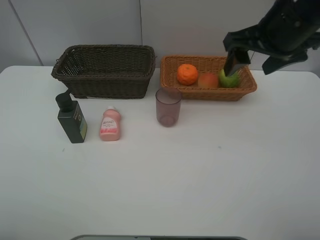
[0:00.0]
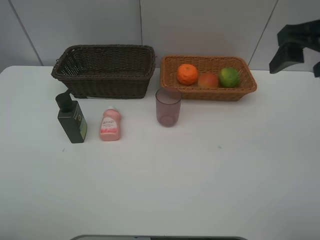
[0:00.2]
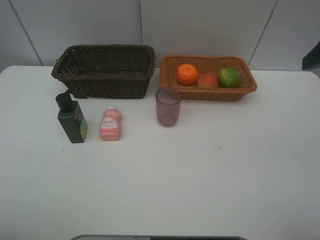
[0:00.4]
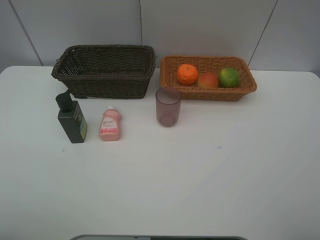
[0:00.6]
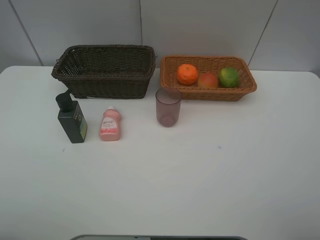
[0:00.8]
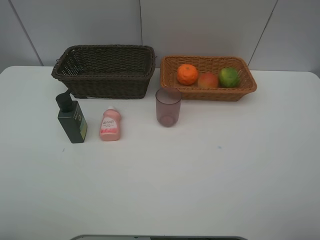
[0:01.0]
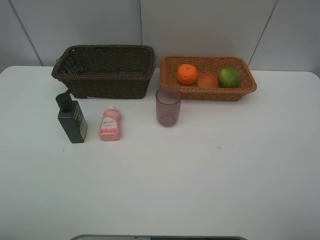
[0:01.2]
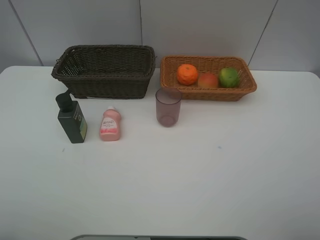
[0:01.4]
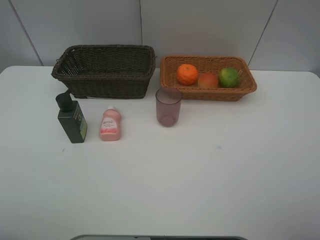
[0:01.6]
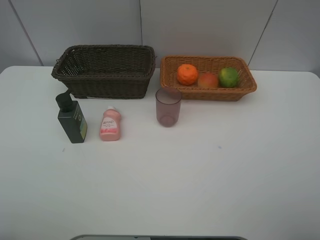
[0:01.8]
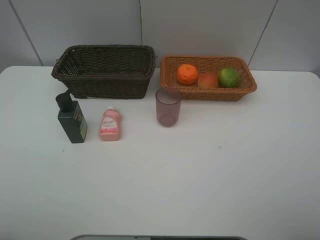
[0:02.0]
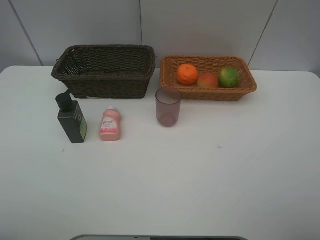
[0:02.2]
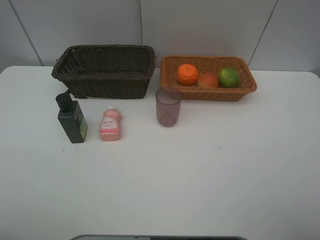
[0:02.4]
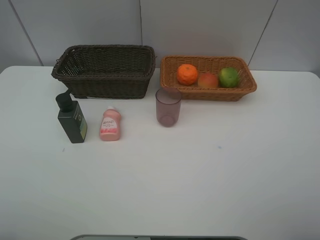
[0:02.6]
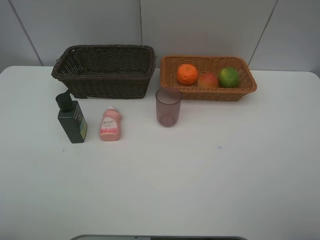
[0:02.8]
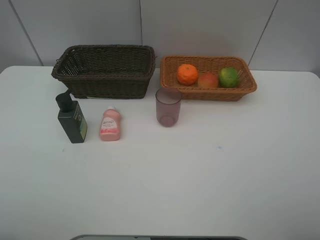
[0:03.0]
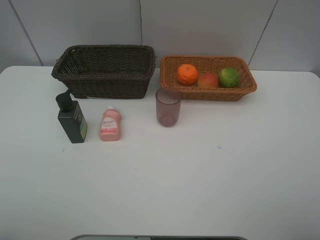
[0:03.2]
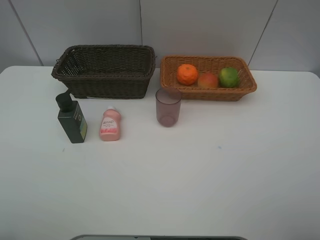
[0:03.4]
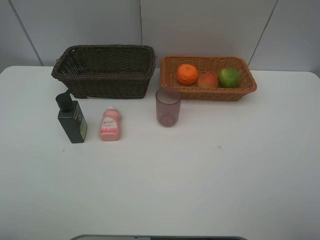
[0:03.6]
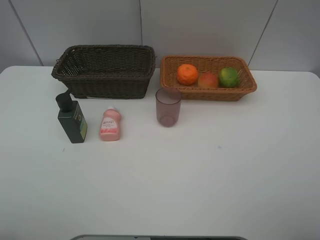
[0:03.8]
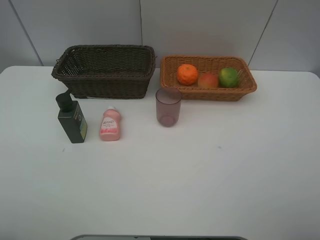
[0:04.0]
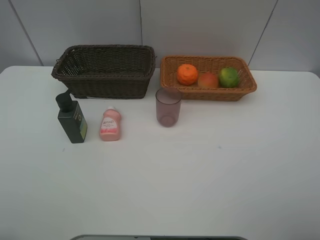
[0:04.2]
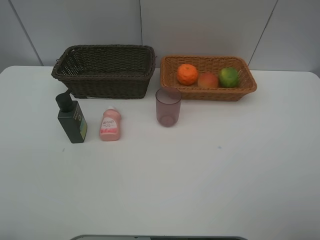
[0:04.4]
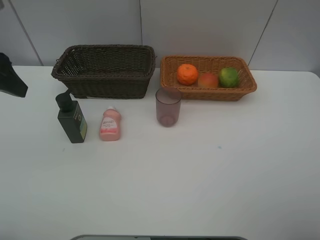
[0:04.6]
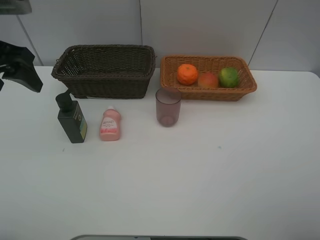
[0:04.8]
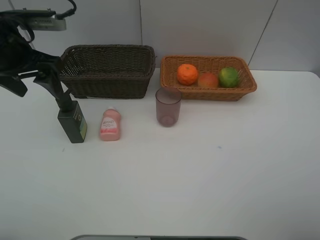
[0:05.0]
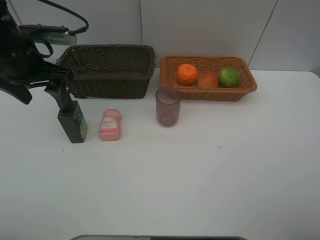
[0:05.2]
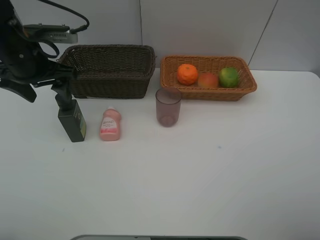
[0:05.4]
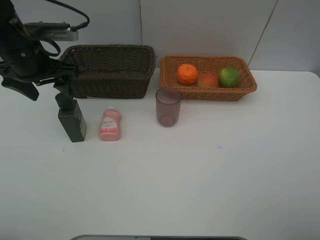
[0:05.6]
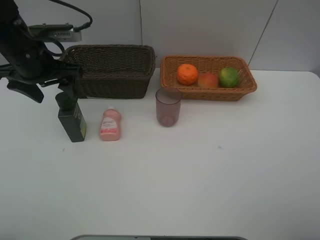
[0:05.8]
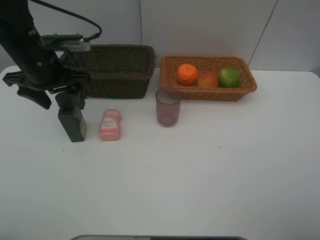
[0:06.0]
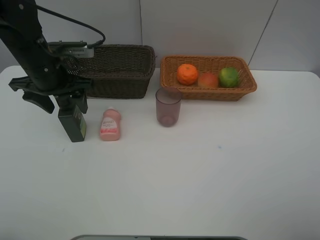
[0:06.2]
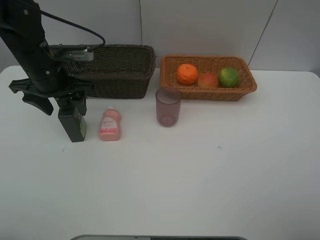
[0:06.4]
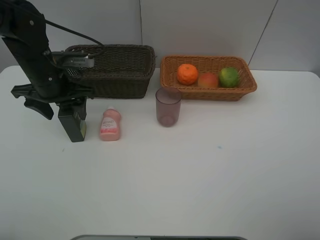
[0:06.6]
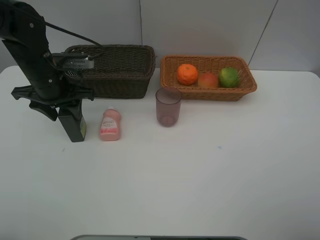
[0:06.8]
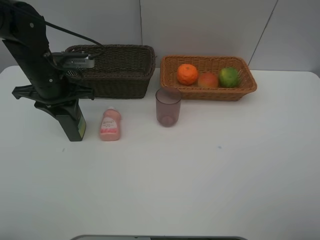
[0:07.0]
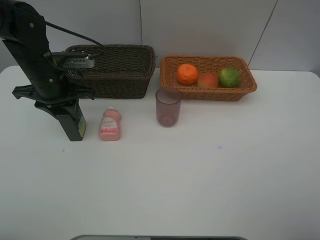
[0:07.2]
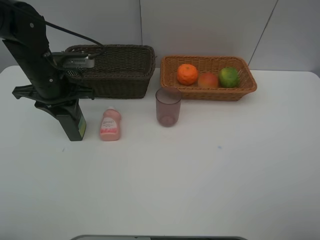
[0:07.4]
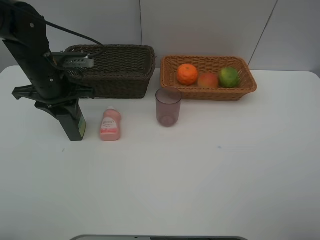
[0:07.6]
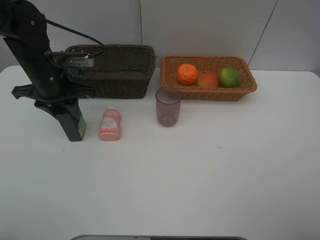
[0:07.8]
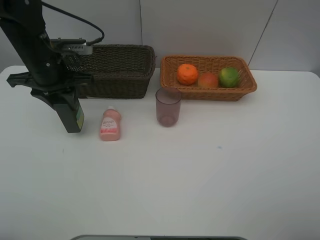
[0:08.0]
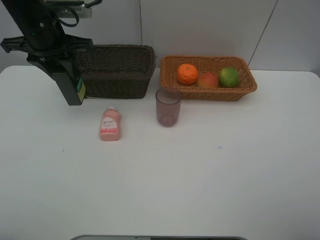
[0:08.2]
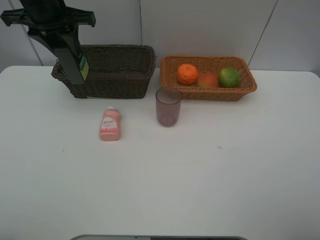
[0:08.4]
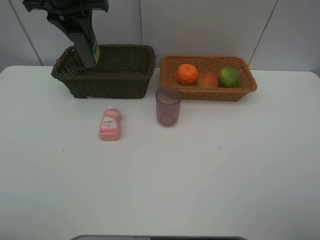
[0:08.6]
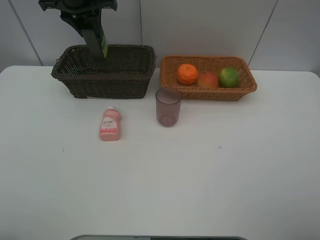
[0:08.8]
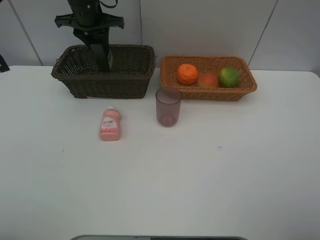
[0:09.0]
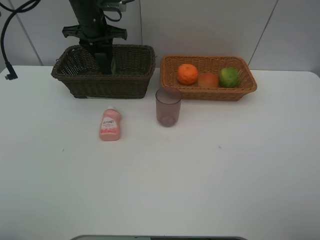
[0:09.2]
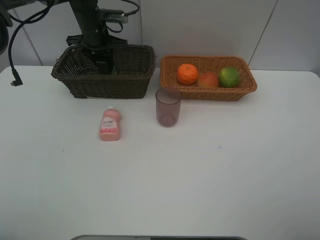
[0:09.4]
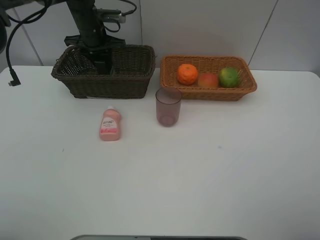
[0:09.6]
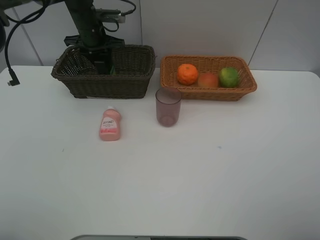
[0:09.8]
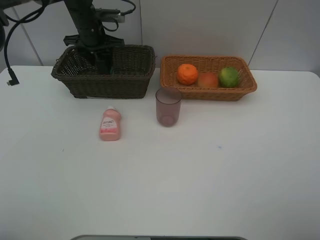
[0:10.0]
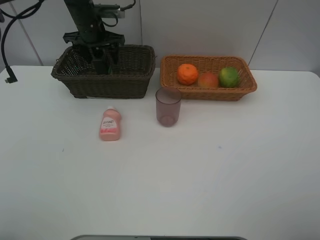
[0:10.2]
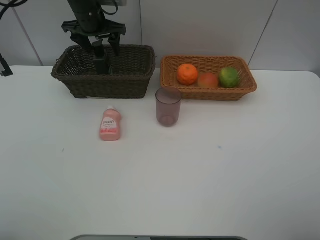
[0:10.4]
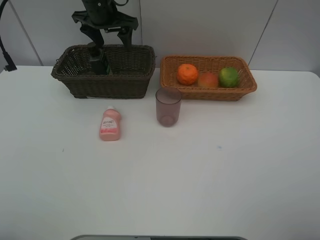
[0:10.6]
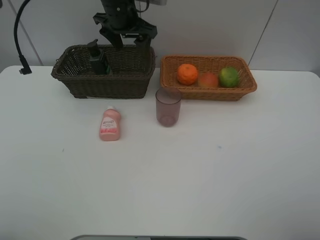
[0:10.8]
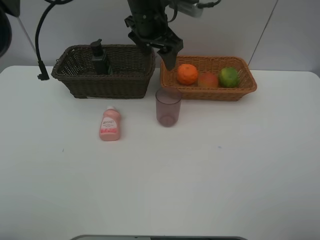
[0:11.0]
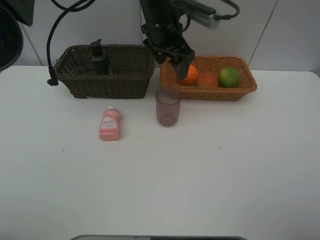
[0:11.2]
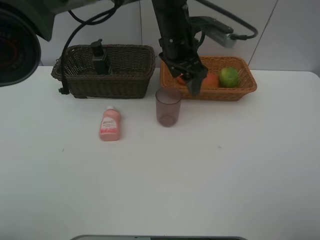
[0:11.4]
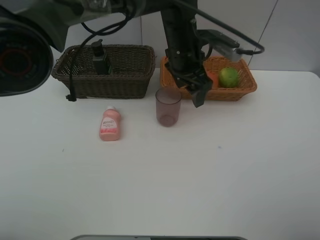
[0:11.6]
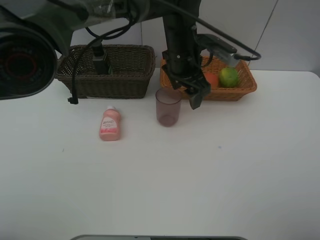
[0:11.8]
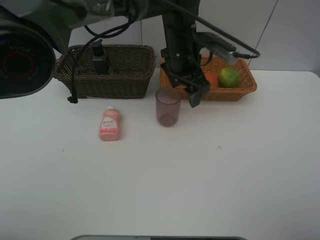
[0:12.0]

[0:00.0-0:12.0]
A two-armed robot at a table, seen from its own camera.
Task of the whole recording: place multiple objects separately in different baskets.
0:00.0 to 0:01.6: The right gripper goes roughly 25 cm backward.
0:04.4 to 0:06.0: The left gripper moves forward, downward and to the right, some 20 cm.
0:06.0 to 0:07.6: The left gripper closes its fingers.
0:07.6 to 0:09.0: The left gripper shifts approximately 20 cm forward and upward.
0:09.0 to 0:10.4: The left gripper opens its fingers.
0:10.4 to 0:12.0: The left gripper moves to the right and backward, approximately 25 cm.

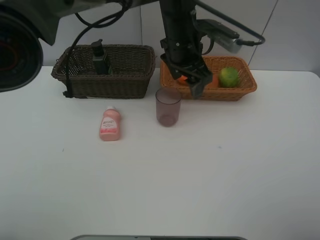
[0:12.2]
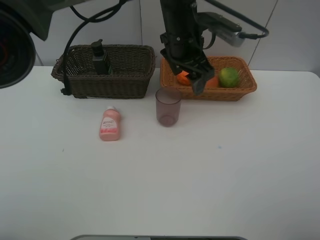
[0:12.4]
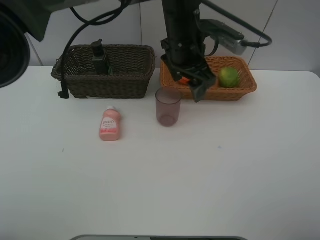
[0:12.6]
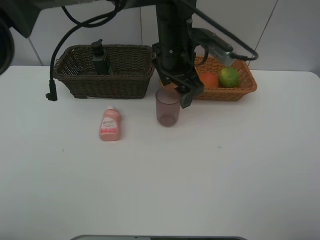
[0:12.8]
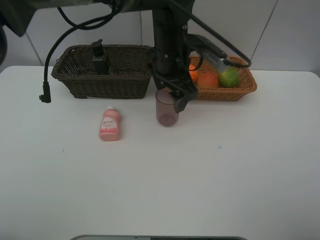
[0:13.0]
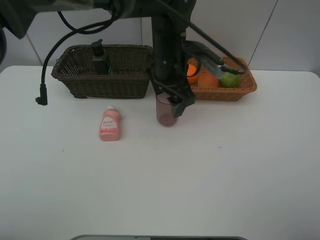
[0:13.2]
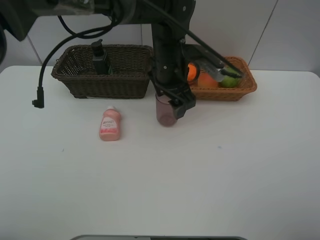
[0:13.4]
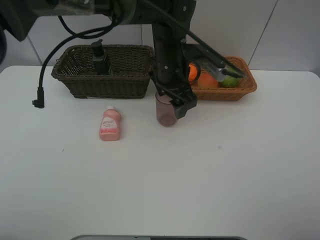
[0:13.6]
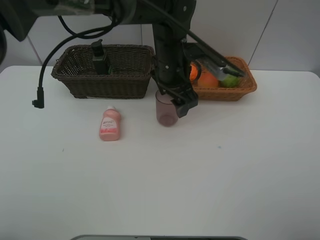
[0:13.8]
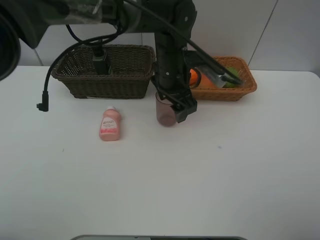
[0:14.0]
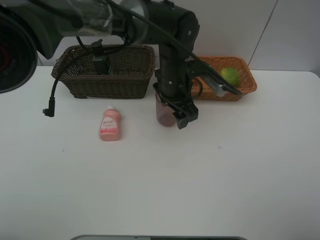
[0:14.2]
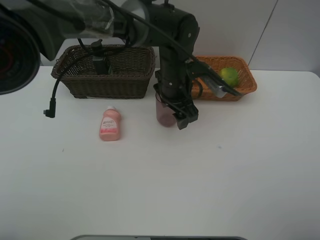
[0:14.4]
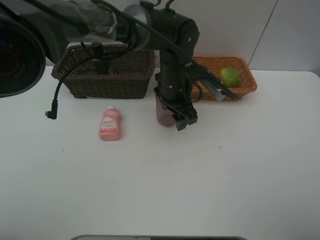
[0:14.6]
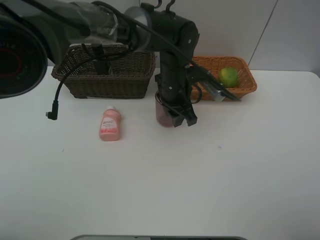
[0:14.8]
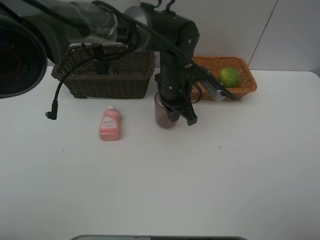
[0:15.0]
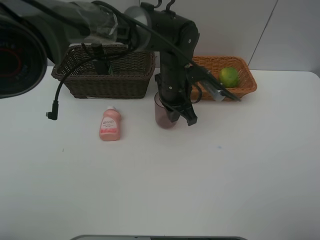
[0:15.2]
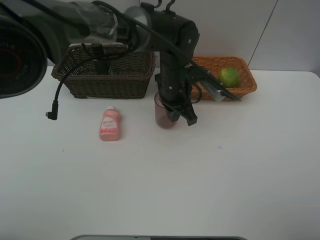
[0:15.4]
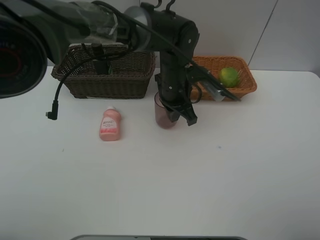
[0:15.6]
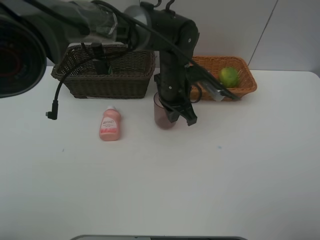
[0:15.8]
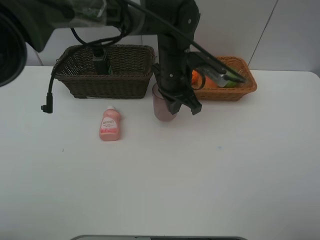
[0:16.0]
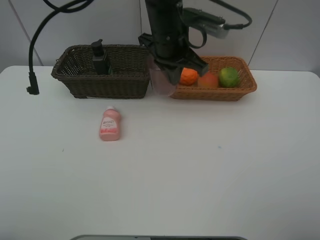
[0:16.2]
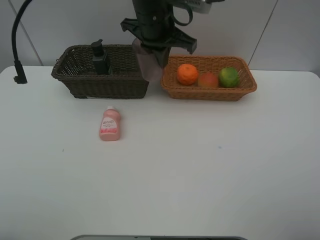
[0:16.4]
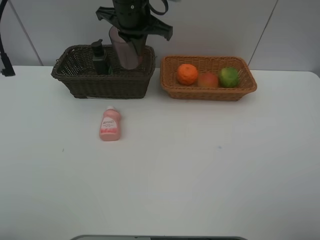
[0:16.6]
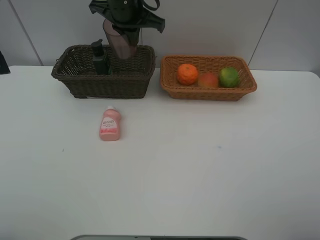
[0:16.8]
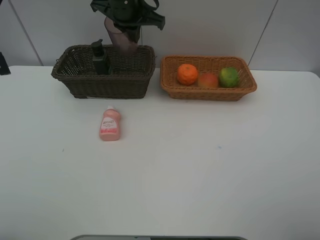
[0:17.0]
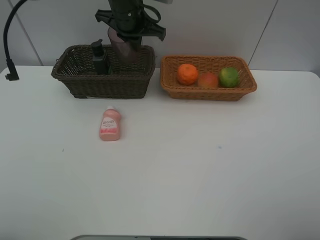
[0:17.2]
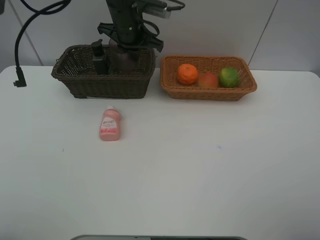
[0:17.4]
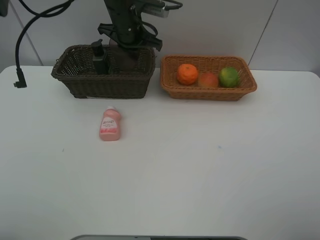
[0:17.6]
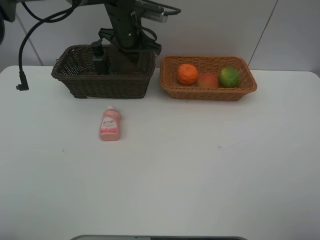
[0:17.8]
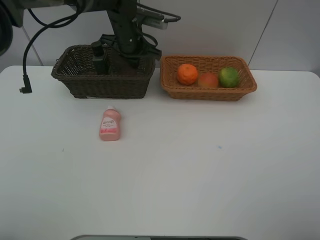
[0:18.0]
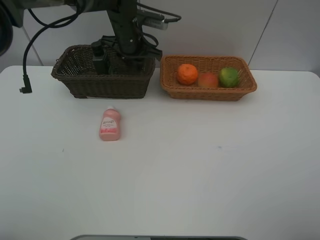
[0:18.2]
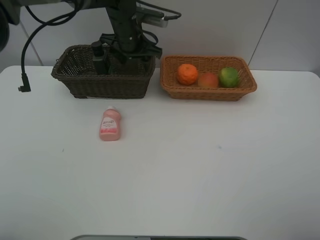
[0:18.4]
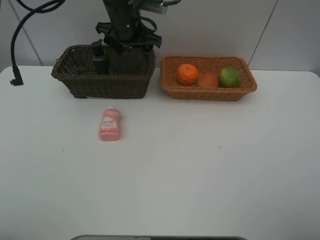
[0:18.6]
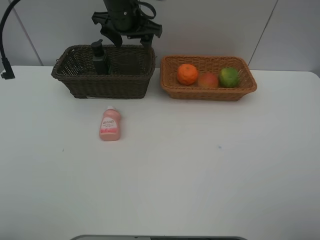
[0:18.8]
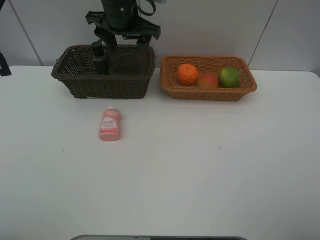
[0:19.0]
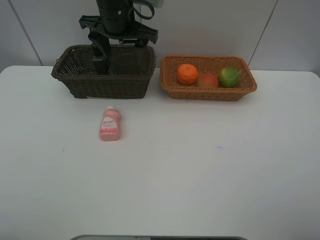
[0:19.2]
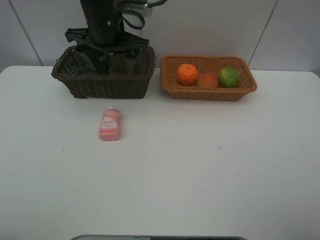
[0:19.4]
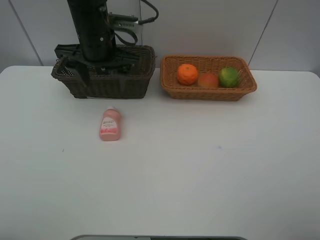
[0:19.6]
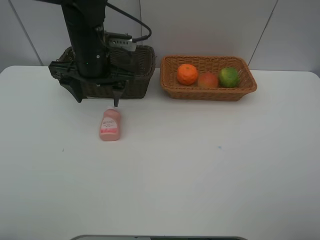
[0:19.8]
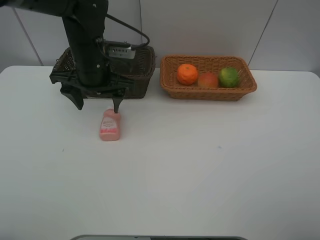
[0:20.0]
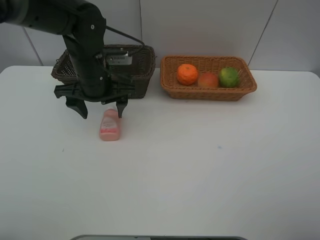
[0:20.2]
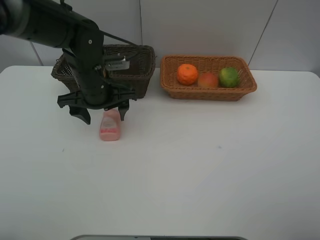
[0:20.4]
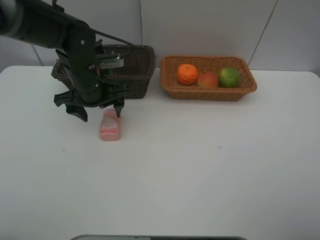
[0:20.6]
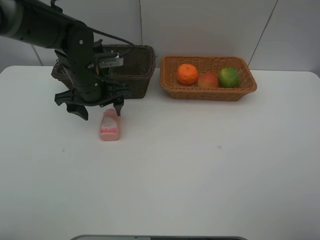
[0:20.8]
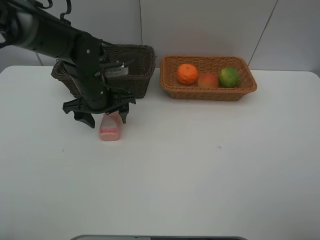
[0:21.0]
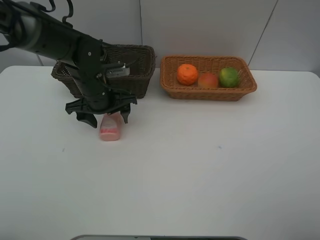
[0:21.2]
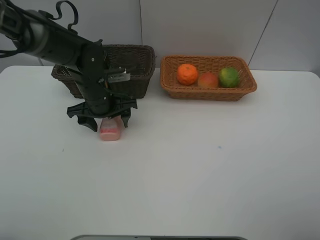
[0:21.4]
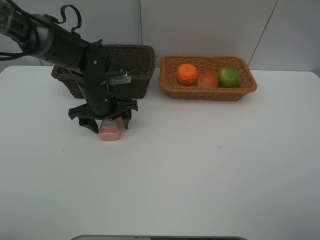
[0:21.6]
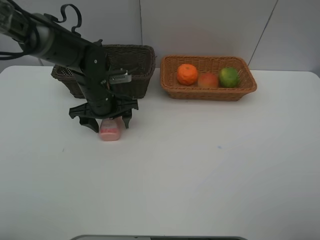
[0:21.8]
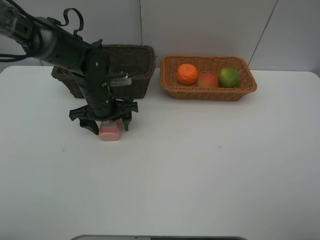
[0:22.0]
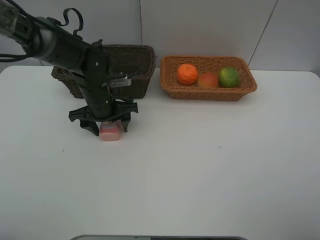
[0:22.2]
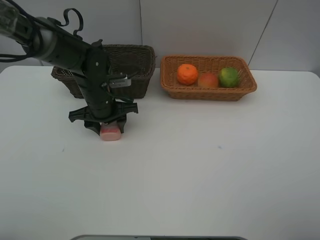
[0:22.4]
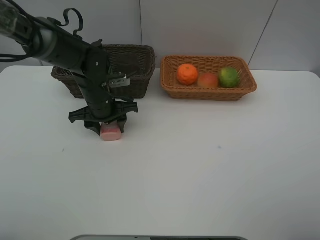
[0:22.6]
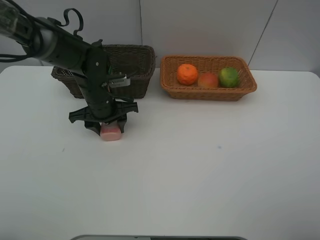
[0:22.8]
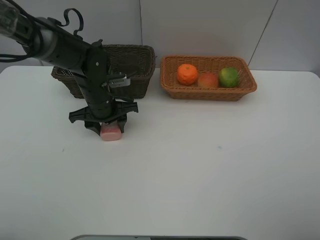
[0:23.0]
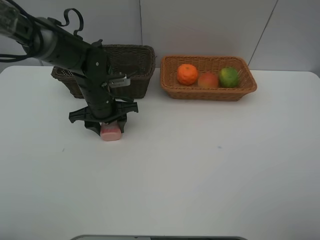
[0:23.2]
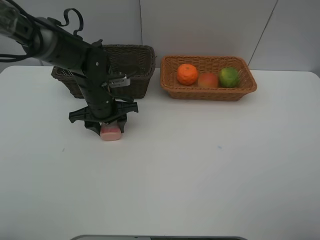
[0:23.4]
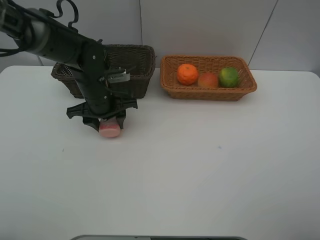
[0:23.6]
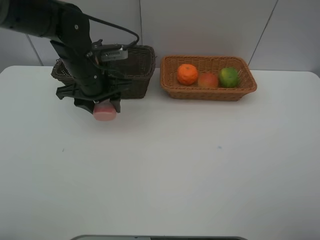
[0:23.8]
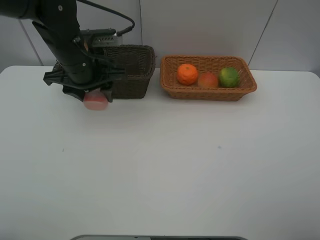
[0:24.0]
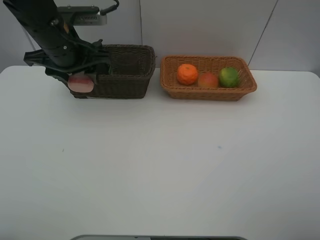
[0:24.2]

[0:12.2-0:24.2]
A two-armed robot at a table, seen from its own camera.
Task of the whole recording: place multiple objects separately in different baskets.
0:12.2 to 0:13.8: There are only small adjustments of the grippers.
0:13.8 to 0:15.2: The left gripper closes its fingers.
0:15.2 to 0:16.6: The left gripper heads upward, to the left and forward, covering roughly 20 cm.
0:16.6 to 0:18.2: The left gripper heads downward and forward, covering some 10 cm, and opens up.
0:18.2 to 0:19.8: The left gripper goes roughly 15 cm backward, and opens its fingers.
0:19.8 to 0:21.2: The left gripper travels downward by some 10 cm.
0:21.2 to 0:22.6: There are only small adjustments of the grippers.
0:22.6 to 0:24.2: The left gripper moves upward, roughly 15 cm.
